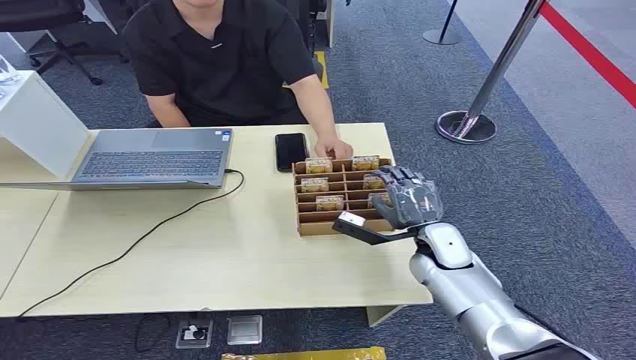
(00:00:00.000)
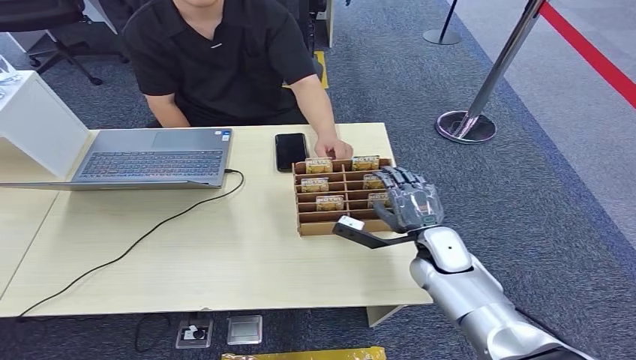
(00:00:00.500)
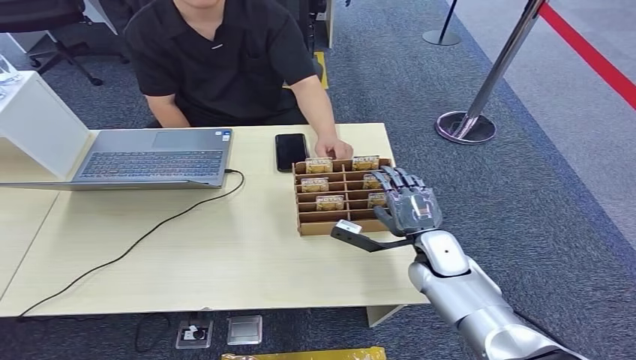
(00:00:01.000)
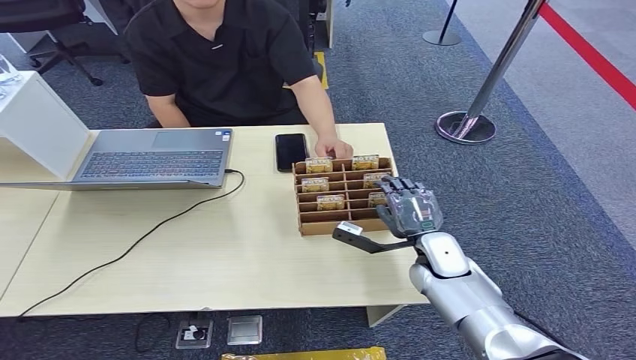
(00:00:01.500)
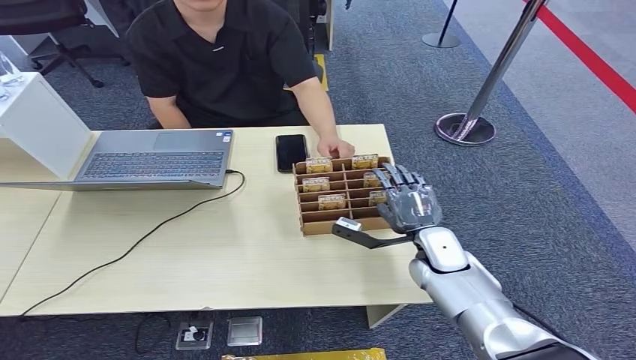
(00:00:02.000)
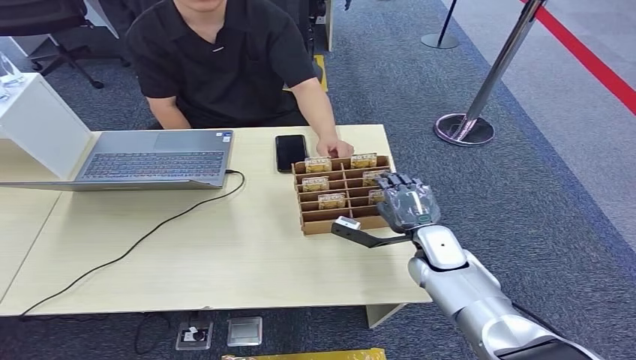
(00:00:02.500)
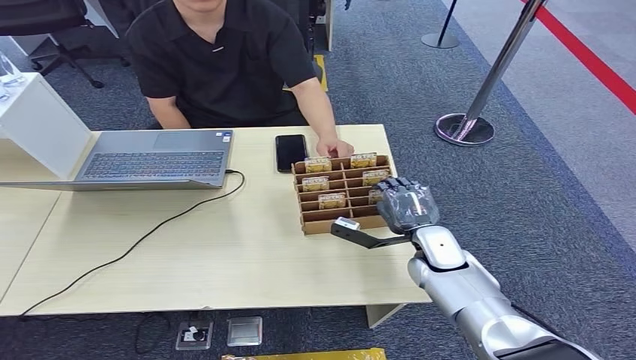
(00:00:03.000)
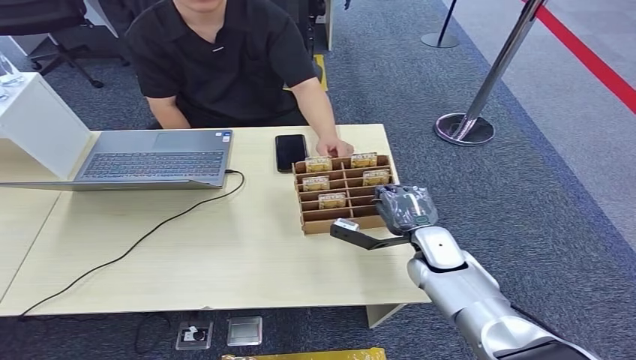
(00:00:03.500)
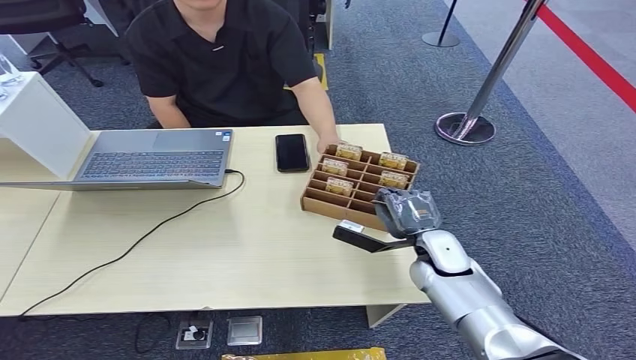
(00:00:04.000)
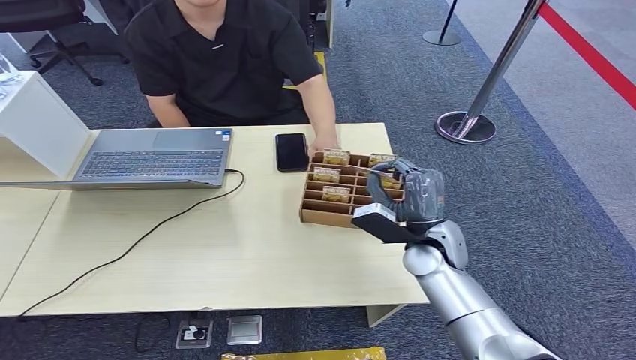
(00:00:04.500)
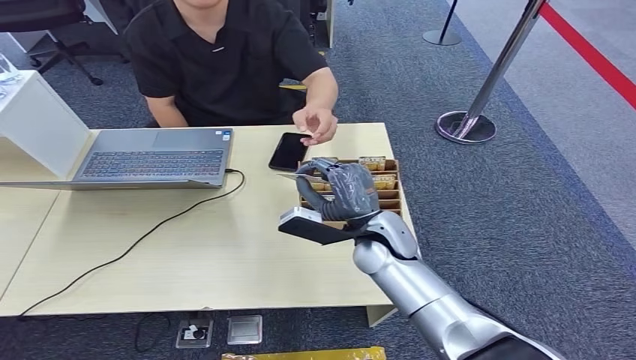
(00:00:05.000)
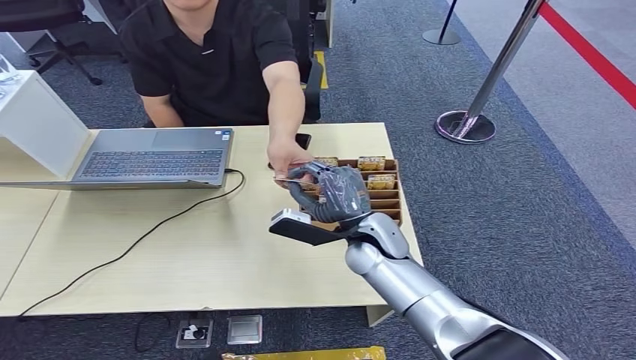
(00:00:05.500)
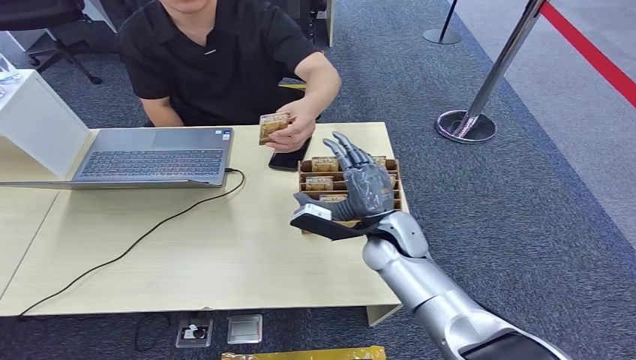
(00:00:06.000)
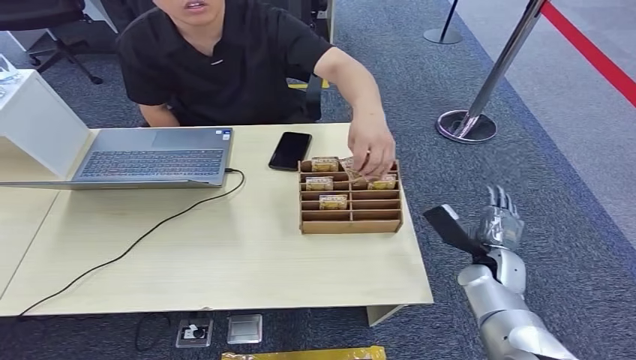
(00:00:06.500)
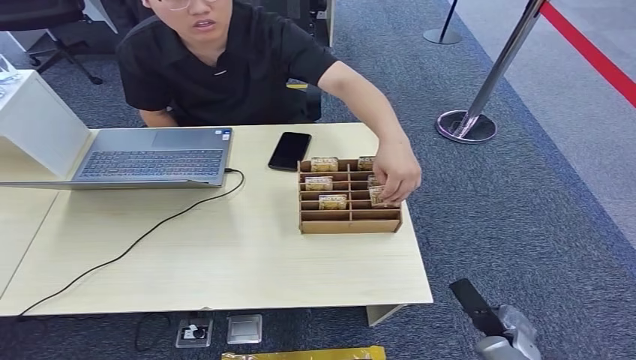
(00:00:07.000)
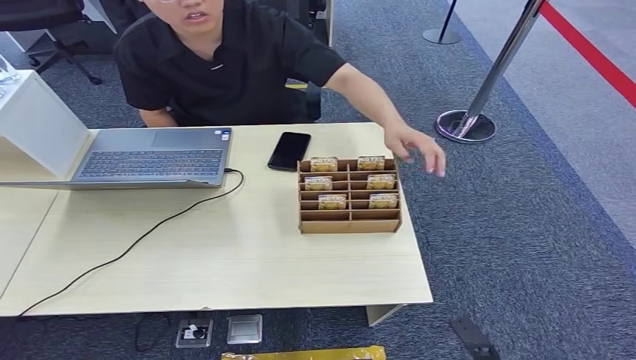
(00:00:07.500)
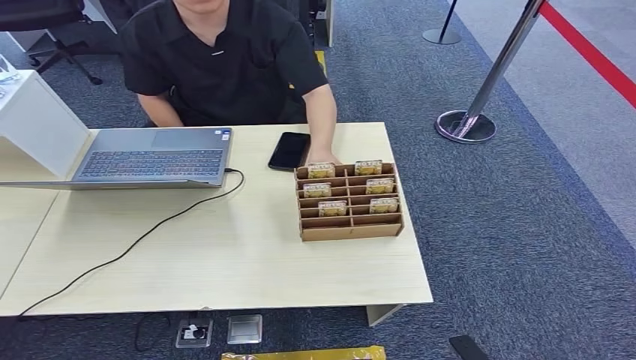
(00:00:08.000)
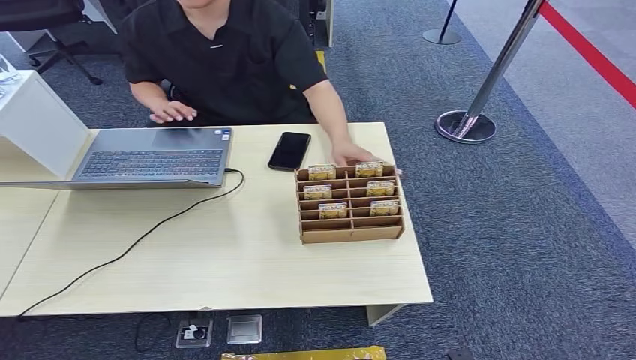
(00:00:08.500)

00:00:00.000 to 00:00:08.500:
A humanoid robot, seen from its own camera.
Step, 00:00:00.000 to 00:00:04.500: Pick up the room card from the card holder.
Step, 00:00:05.000 to 00:00:08.500: Hand the room card to the target.
00:00:02.000 to 00:00:04.000: The hands move only a little.
00:00:04.000 to 00:00:06.500: The right hand is displaced to the right by about 10 cm.
00:00:06.500 to 00:00:08.500: The right hand moves backward and downward, about 35 cm, while the left hand moves backward, approximately 5 cm.

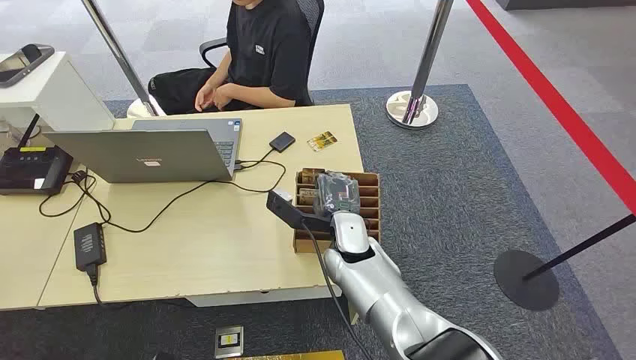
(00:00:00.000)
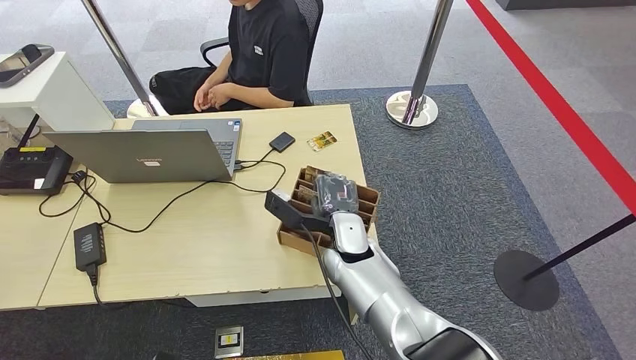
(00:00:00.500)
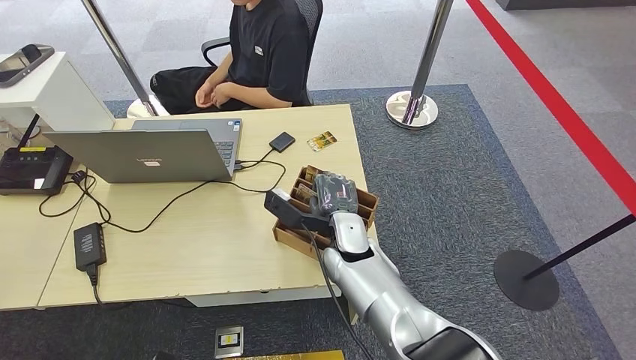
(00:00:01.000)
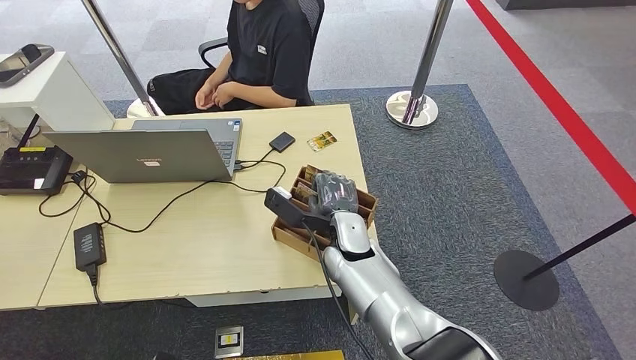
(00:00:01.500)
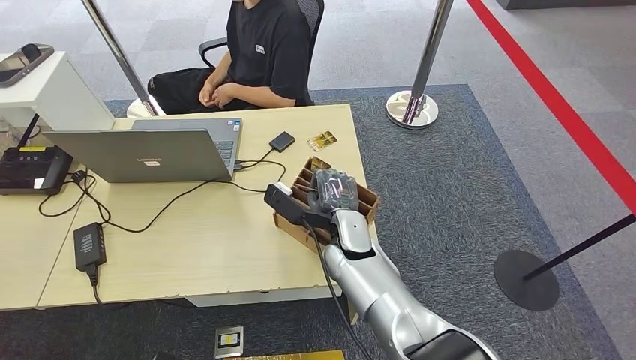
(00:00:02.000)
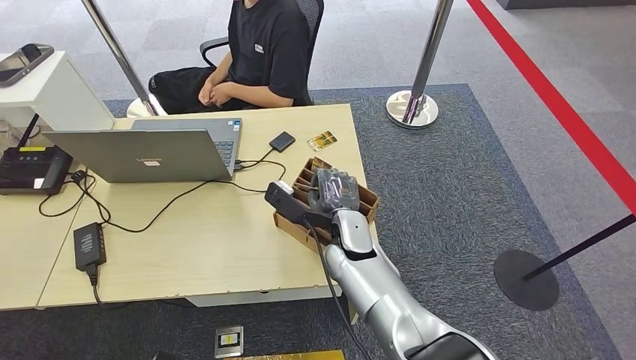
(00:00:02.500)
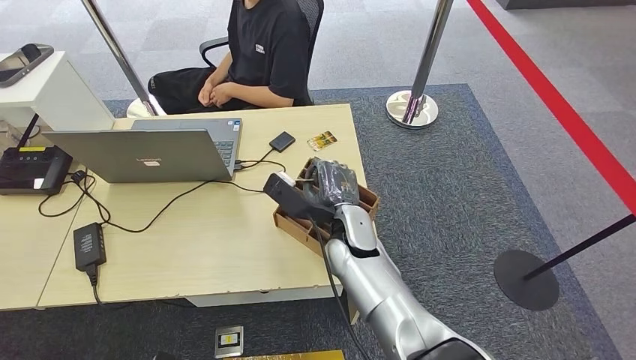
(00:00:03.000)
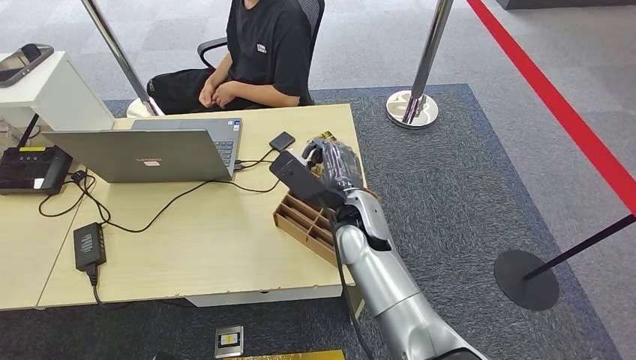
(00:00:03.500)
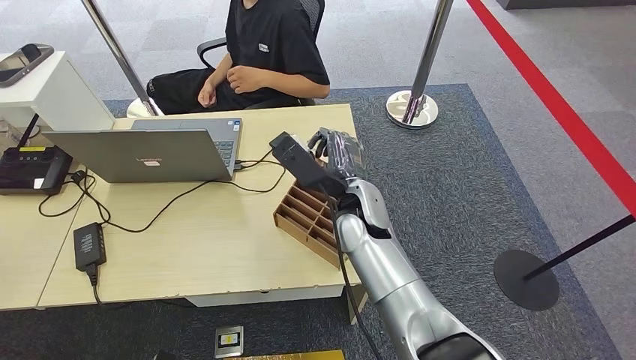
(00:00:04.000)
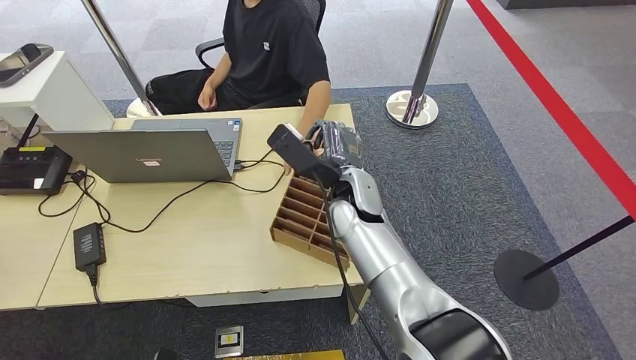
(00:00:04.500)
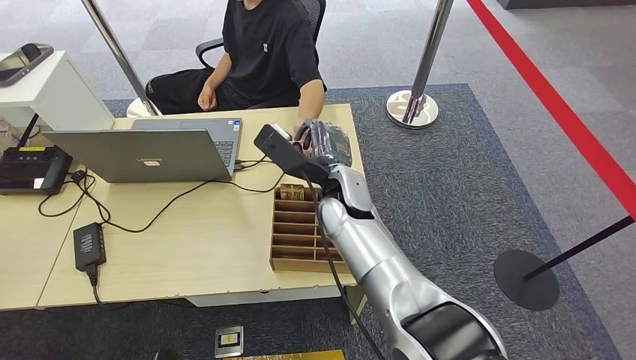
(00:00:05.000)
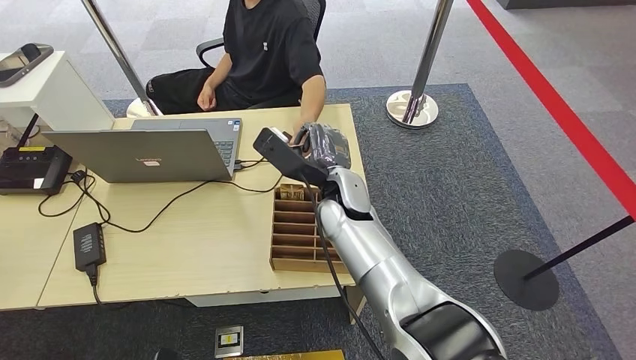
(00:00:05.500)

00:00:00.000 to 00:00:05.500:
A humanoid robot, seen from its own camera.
Step, 00:00:00.000 to 00:00:03.000: Pick up the room card from the card holder.
Step, 00:00:03.500 to 00:00:05.500: Hand the room card to the target.
00:00:02.000 to 00:00:03.500: The right hand heads upward, covering roughly 5 cm.
00:00:03.500 to 00:00:05.500: The hands stay close to where they were, moving slightly.
